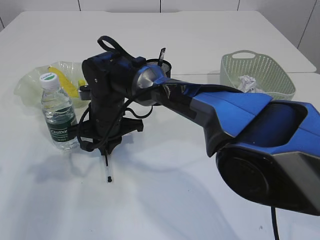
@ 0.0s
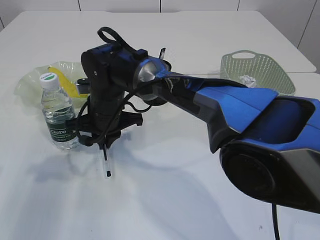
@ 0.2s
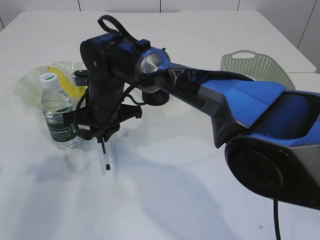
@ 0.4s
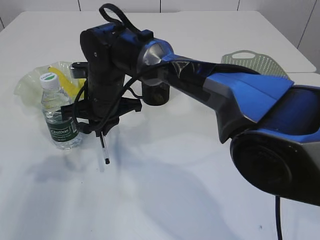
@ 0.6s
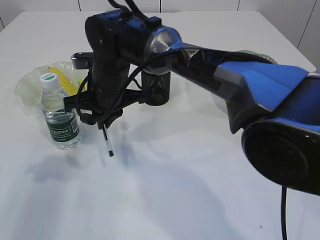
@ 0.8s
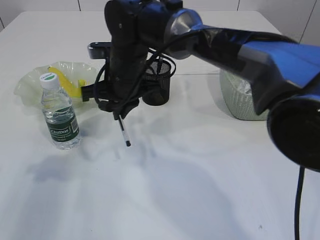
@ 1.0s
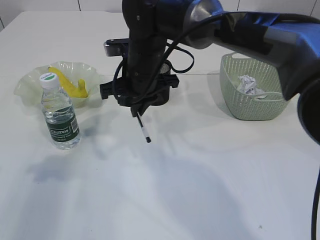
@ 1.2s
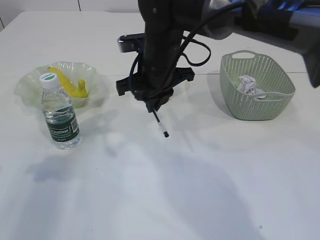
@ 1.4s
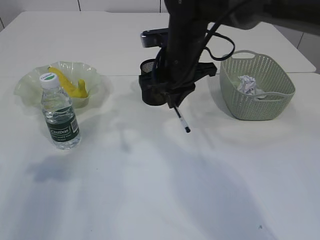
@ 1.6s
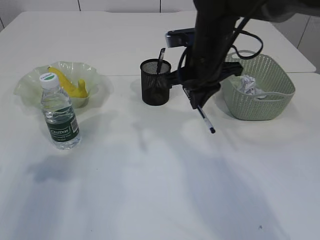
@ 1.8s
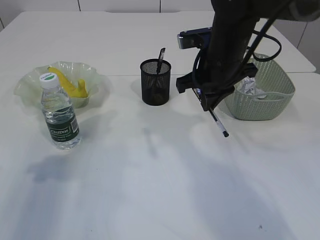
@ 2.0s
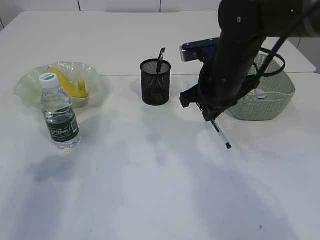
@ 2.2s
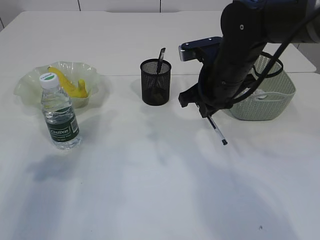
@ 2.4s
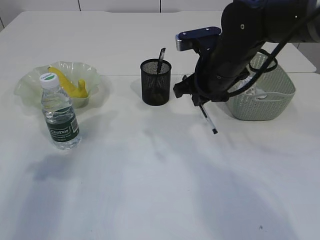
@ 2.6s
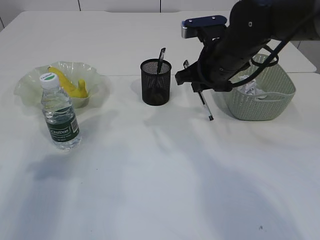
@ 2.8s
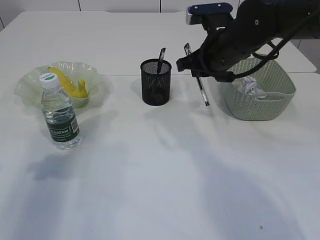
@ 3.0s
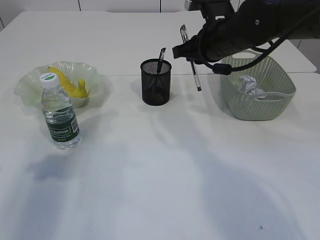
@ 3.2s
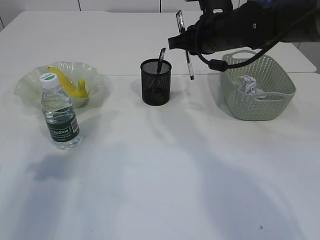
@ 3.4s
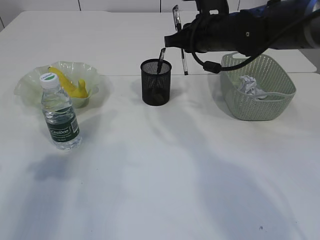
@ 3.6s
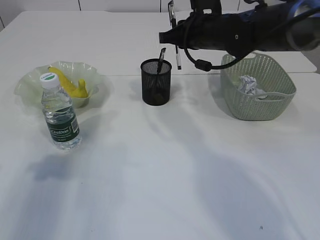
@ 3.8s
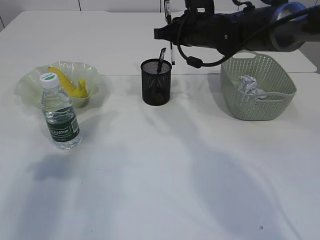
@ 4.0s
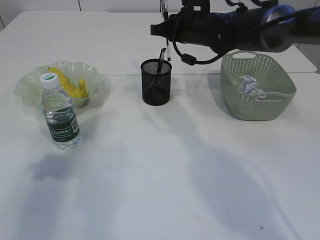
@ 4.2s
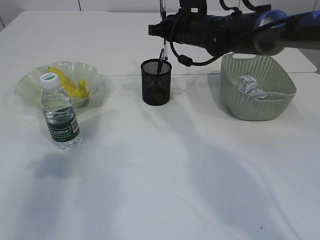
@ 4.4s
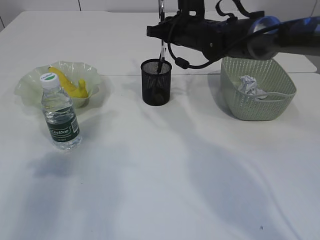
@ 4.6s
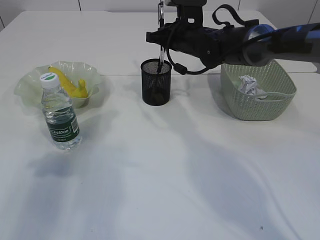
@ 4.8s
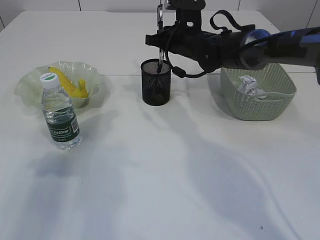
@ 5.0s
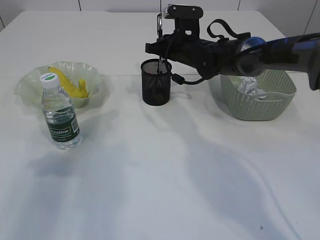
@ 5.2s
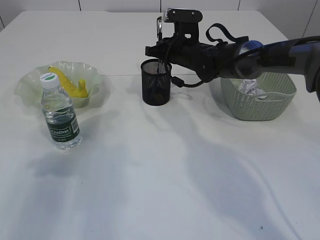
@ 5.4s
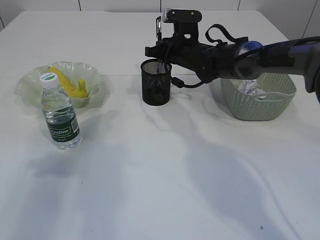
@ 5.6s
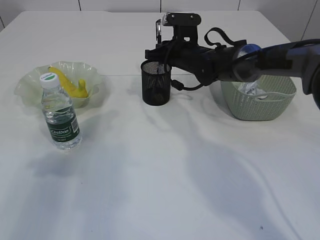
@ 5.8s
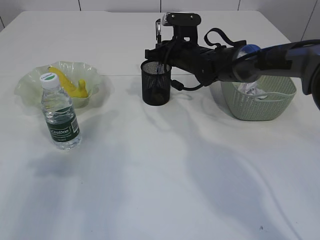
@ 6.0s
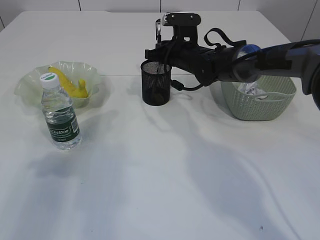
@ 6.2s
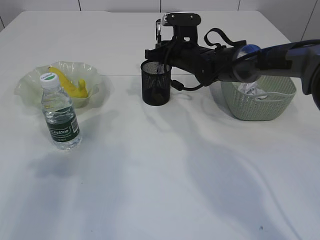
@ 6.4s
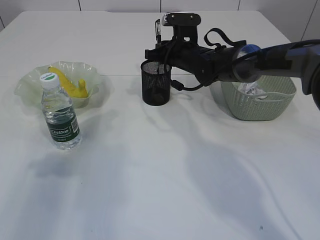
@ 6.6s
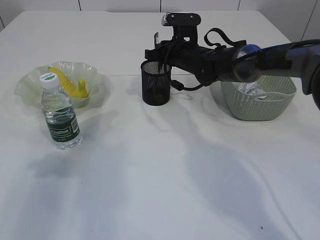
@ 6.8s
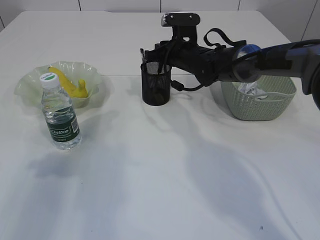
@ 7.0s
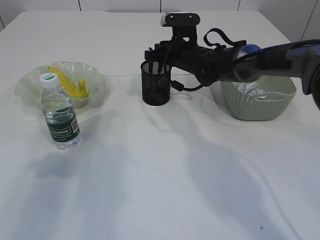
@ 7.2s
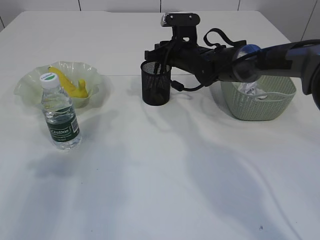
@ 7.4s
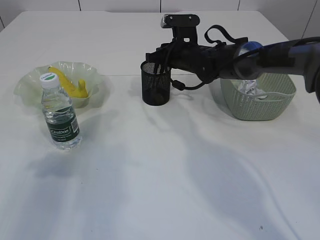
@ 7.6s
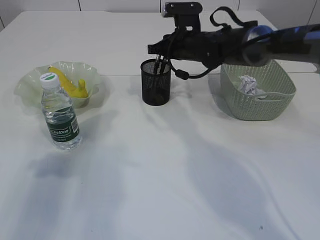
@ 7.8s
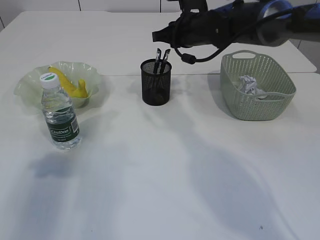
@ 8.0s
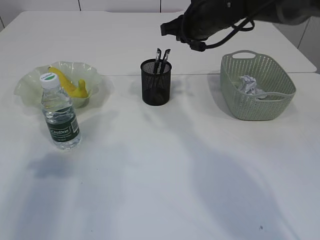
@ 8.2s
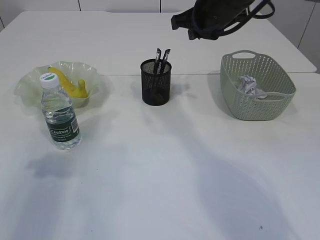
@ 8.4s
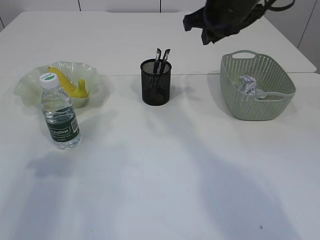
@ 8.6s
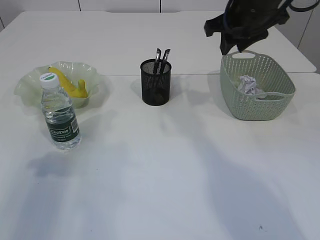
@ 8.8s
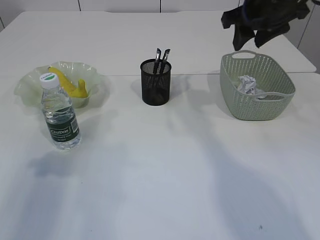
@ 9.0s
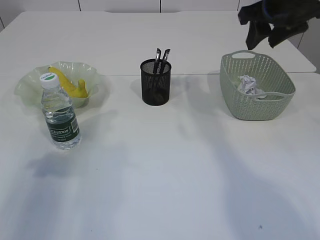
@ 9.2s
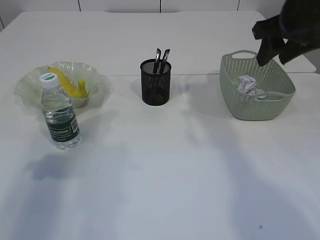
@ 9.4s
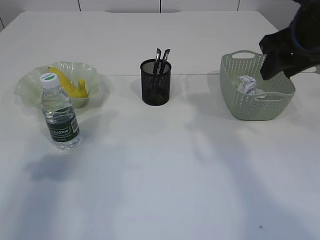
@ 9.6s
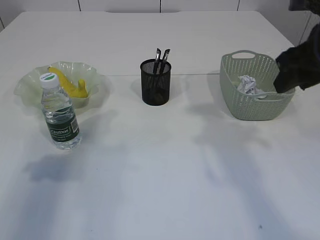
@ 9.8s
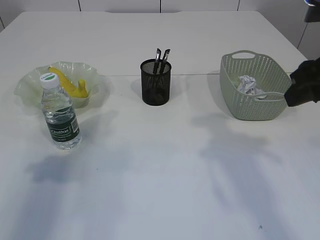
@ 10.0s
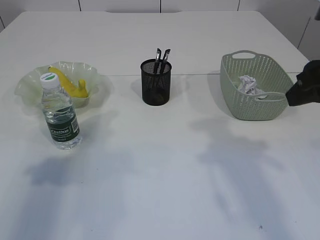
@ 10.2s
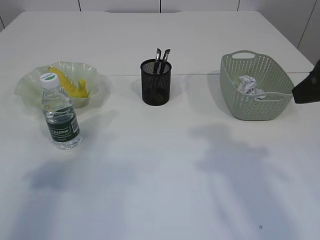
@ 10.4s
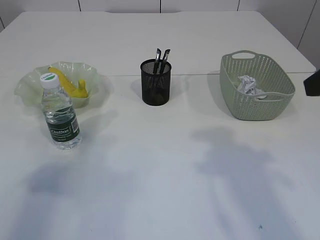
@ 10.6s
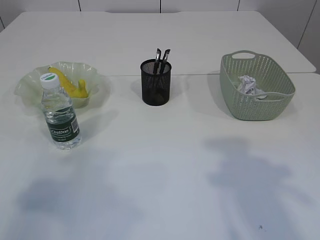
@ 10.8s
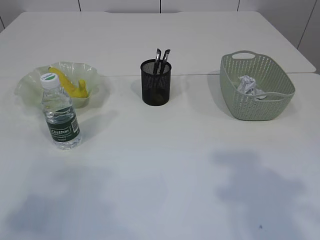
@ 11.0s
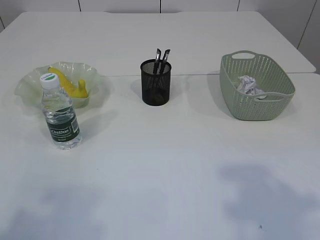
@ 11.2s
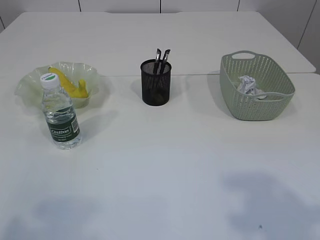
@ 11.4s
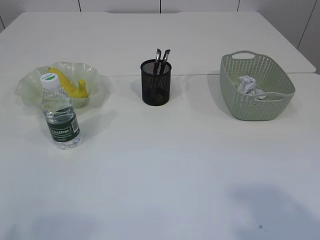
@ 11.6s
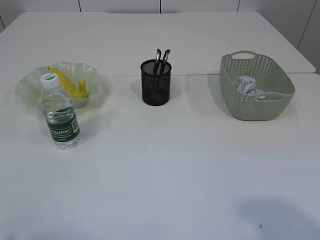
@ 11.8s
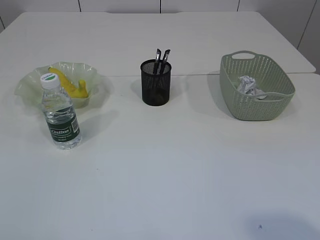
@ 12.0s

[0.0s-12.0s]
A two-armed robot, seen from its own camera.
Step, 0.8s to 8.2s: Place the pen into the pen holder.
0.0s to 1.6s: The right gripper heads to the right and upward, covering approximately 15 cm.
1.6s to 3.0s: The right gripper goes roughly 10 cm to the right.
3.0s to 4.4s: The right gripper travels forward by approximately 10 cm.
4.4s to 6.0s: The right gripper is displaced downward by some 5 cm.
6.0s to 7.6s: Neither gripper changes place.
7.6s to 9.0s: The right gripper shifts about 20 cm upward, backward and to the right, and opens its fingers.
9.0s to 10.4s: The right gripper goes some 20 cm backward.
10.4s to 12.0s: The grippers both shift backward by some 20 cm.

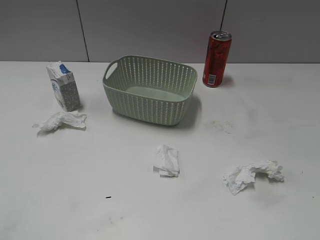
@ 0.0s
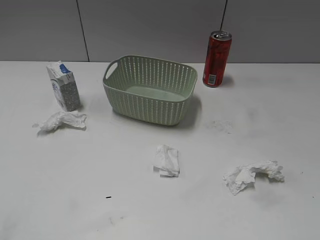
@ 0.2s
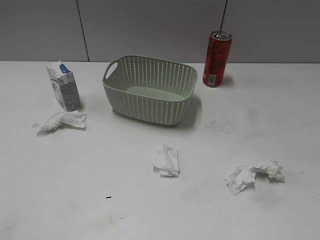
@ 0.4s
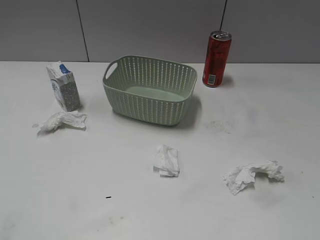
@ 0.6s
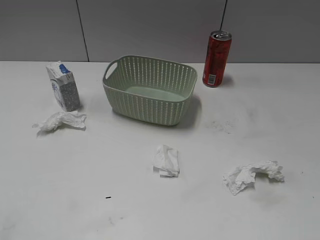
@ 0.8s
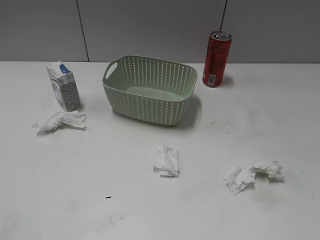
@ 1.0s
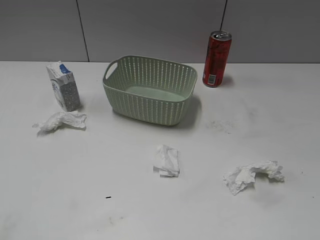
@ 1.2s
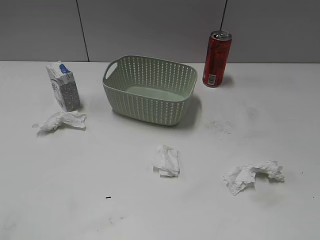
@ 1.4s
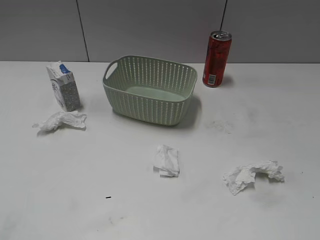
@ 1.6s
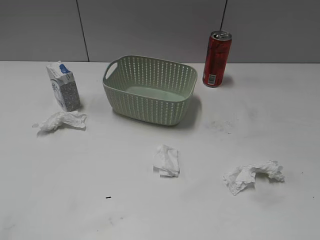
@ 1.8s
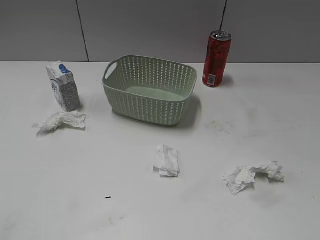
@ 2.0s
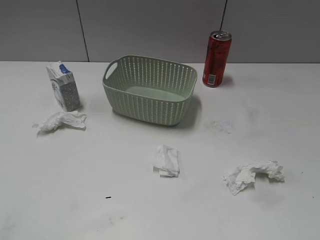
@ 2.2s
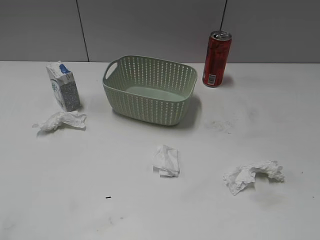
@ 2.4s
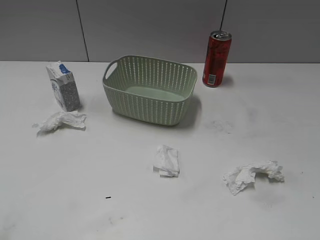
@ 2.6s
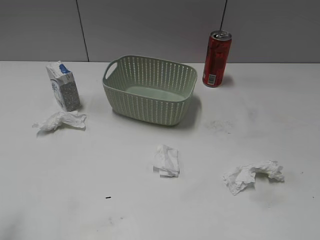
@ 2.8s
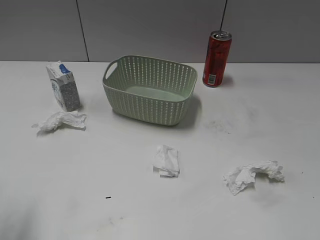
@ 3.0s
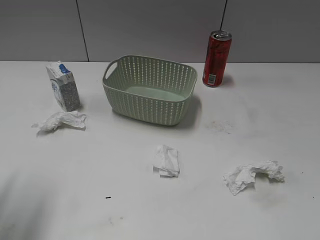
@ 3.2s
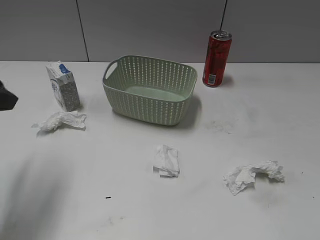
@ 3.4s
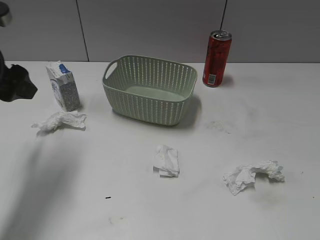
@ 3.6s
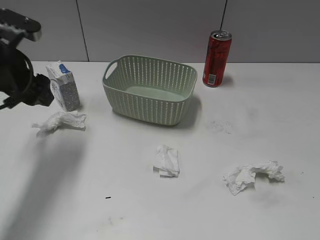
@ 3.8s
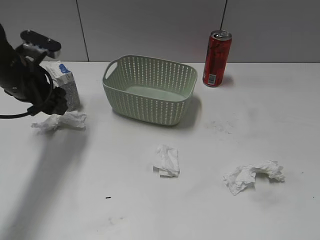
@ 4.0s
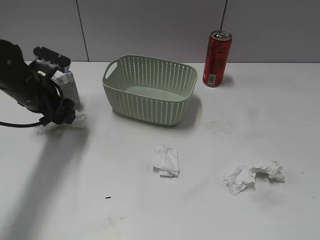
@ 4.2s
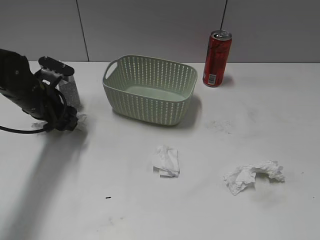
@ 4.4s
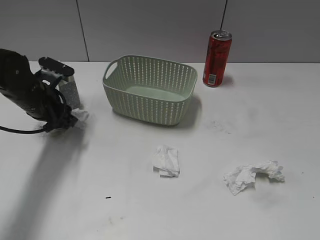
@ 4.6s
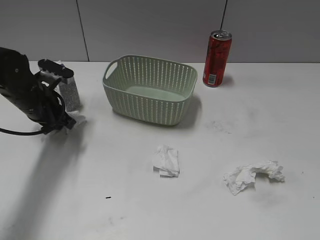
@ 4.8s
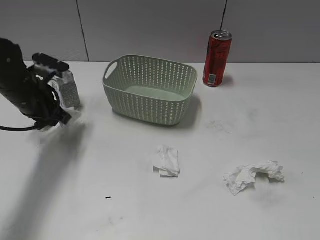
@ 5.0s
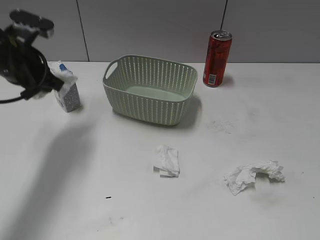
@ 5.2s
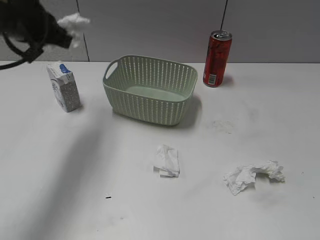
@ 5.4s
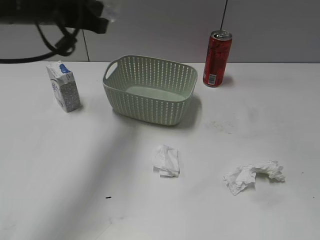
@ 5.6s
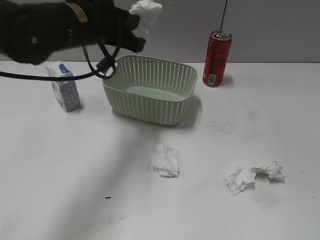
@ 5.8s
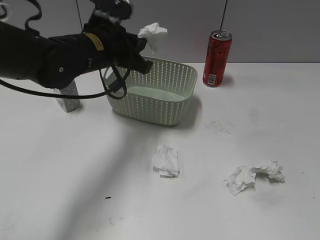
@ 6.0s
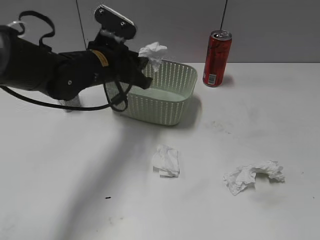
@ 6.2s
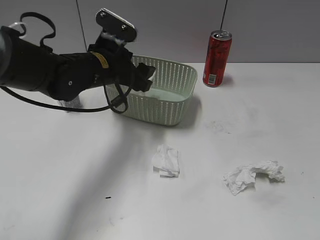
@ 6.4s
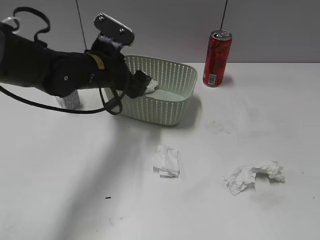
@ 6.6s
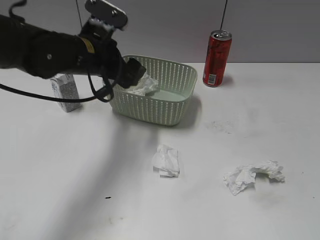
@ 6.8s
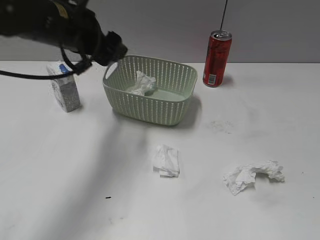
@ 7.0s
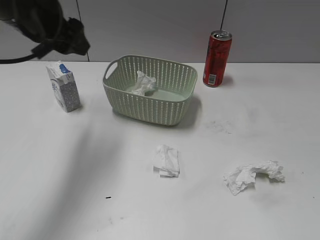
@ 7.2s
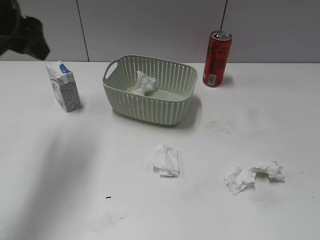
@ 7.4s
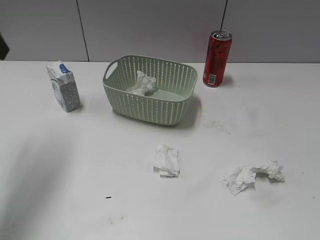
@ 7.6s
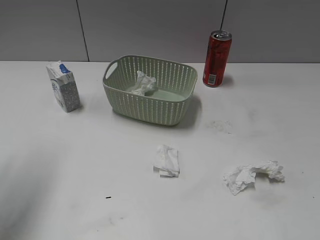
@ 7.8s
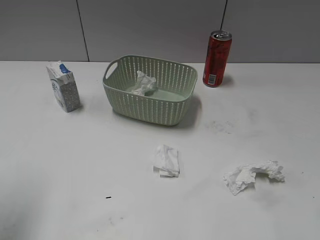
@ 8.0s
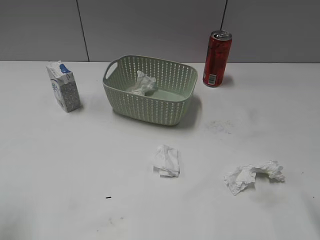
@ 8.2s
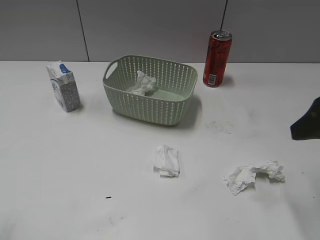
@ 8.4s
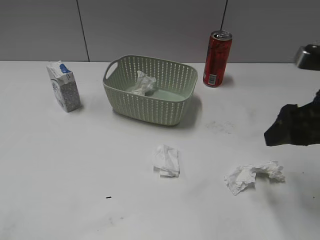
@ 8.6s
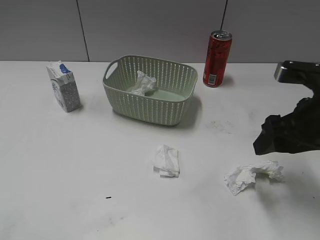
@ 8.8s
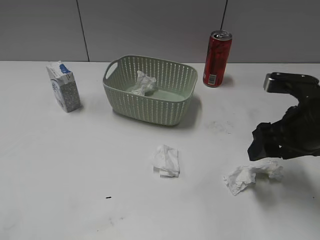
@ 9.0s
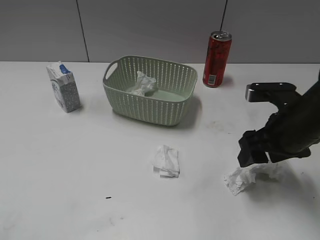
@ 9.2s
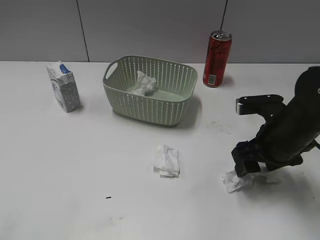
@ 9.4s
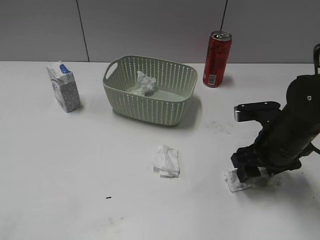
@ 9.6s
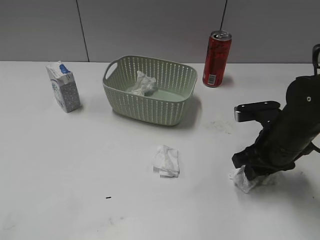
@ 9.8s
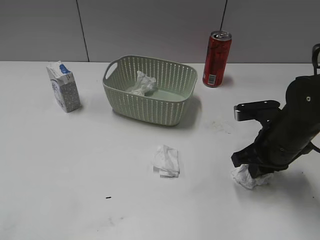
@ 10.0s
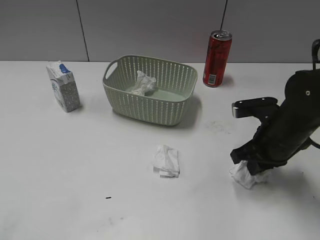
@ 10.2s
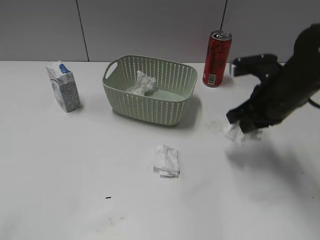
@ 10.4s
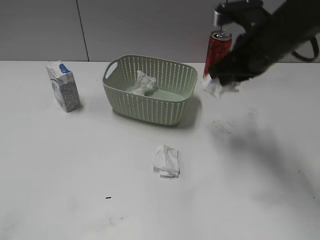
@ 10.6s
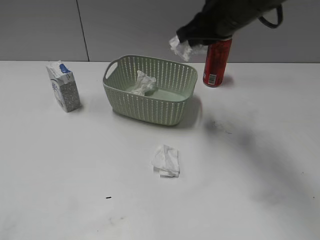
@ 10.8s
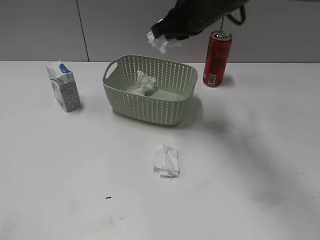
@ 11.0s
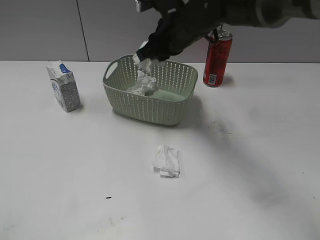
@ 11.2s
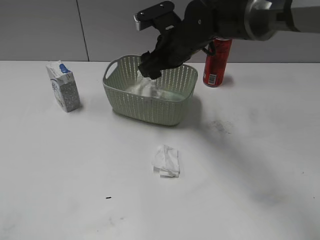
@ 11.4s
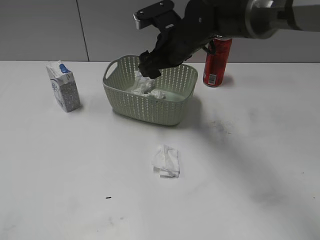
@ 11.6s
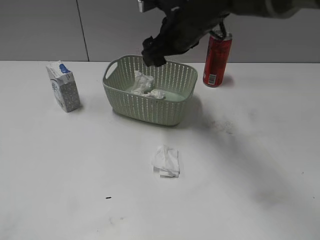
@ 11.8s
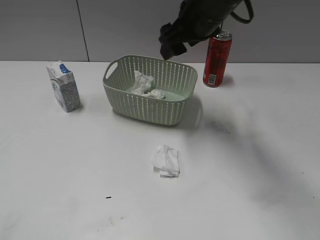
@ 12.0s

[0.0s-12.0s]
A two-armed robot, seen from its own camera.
Step, 3.2s to 5.0s: Grasp the waste paper with left gripper.
Step, 5.2s to 6.8s: Place the waste paper in the basket with left gripper.
Step, 7.0s to 10.0s: Grasp the waste paper with right gripper.
Step, 10.2s to 11.4s: Place the waste paper in the basket with right gripper.
1.6s to 3.0s: The left gripper travels forward by some 15 cm, and opens up.
3.0s to 4.4s: The left gripper travels forward and downward by approximately 25 cm.
4.4s to 6.0s: The left gripper goes some 15 cm to the right and upward, and closes its fingers.
6.0s to 7.6s: The left gripper goes some 25 cm to the left, upward and backward, and opens.
7.6s to 9.0s: The left gripper is displaced backward by some 25 cm; the right gripper moves forward and downward, approximately 25 cm.
9.0s to 10.4s: The right gripper moves forward, approximately 5 cm, reaches about 5 cm downward, then returns, and closes.
10.4s to 12.0s: The right gripper moves to the left, forward and upward, about 15 cm, and opens up.
